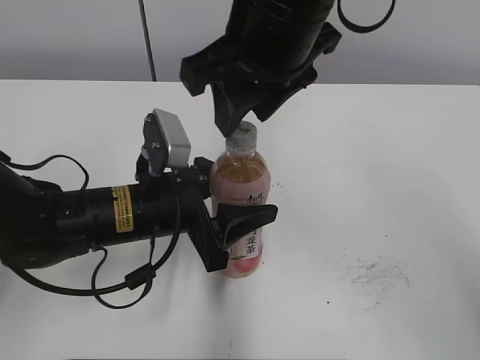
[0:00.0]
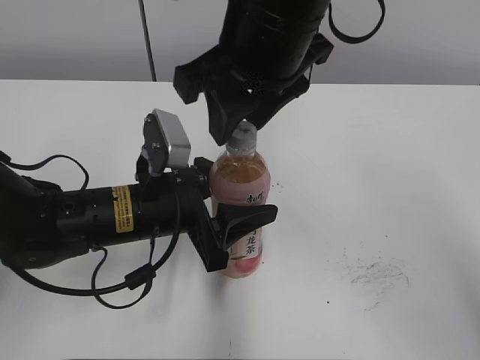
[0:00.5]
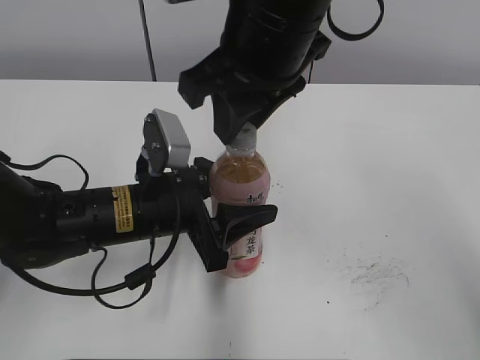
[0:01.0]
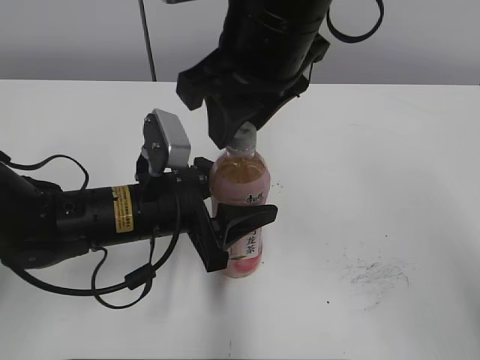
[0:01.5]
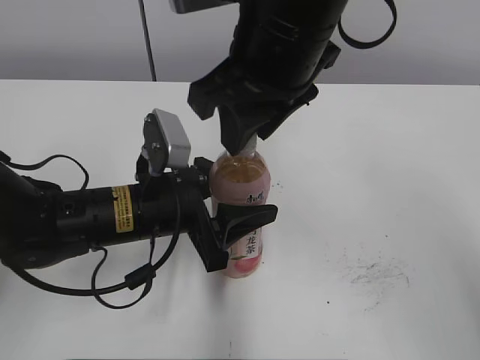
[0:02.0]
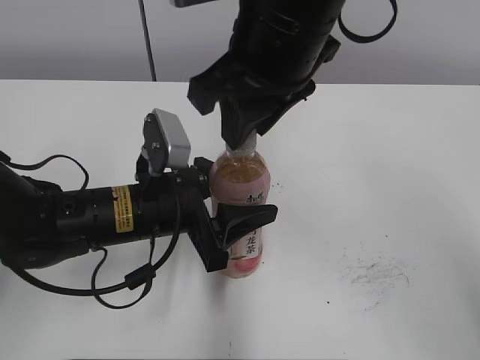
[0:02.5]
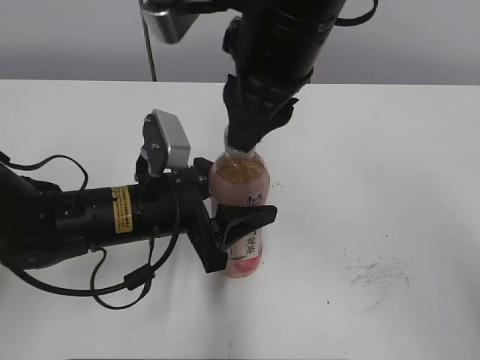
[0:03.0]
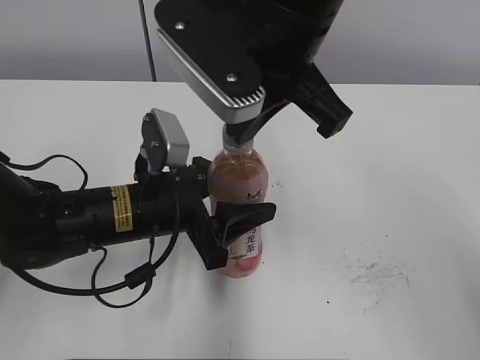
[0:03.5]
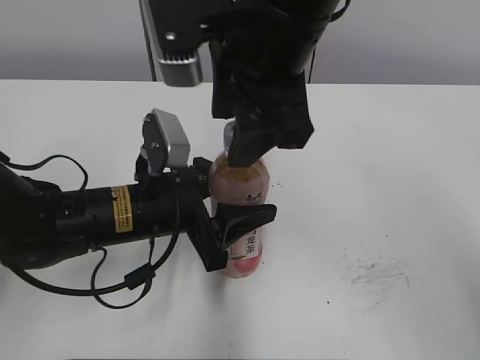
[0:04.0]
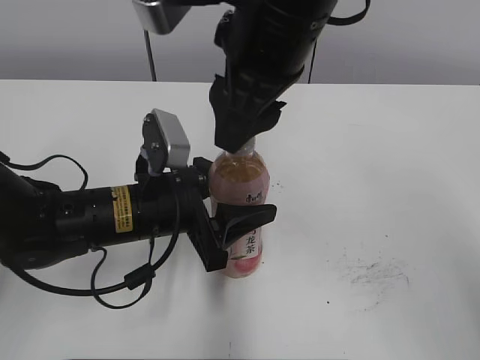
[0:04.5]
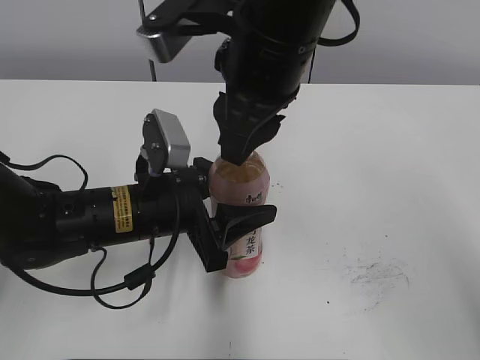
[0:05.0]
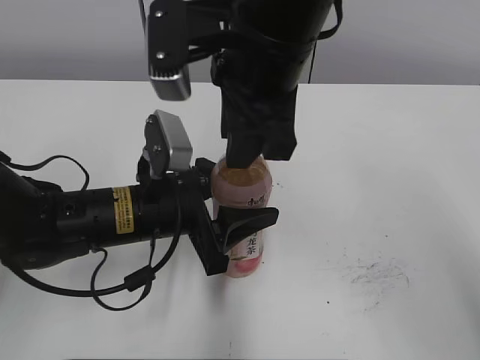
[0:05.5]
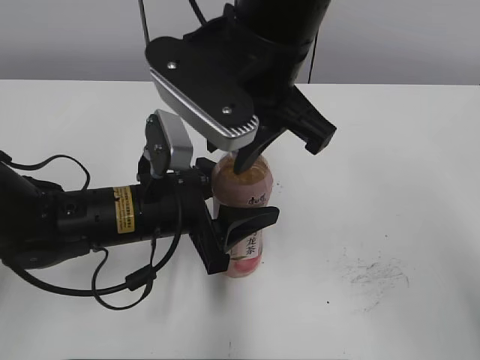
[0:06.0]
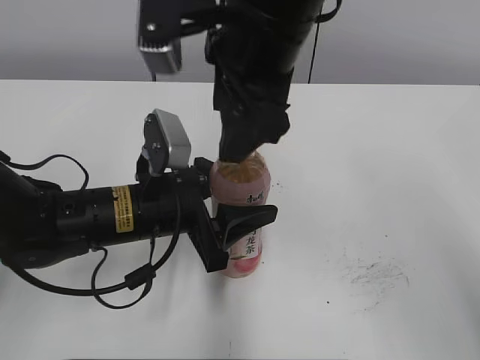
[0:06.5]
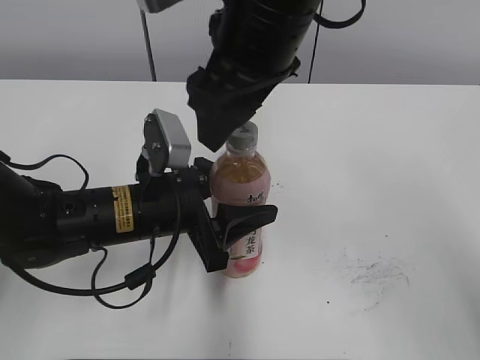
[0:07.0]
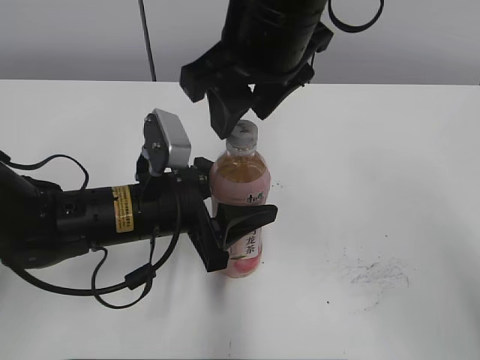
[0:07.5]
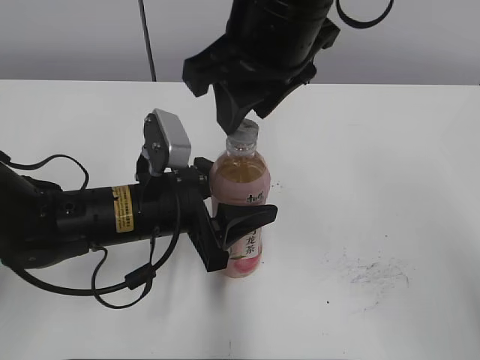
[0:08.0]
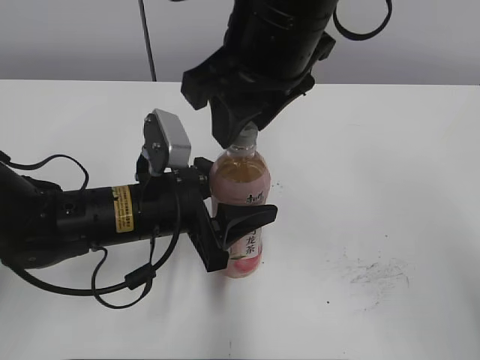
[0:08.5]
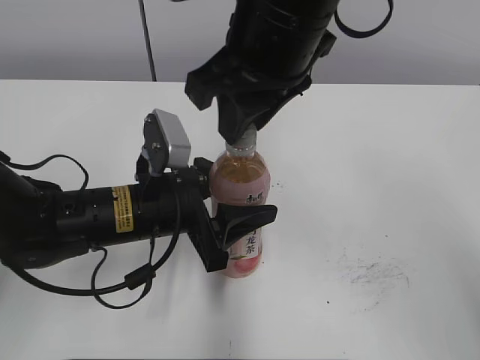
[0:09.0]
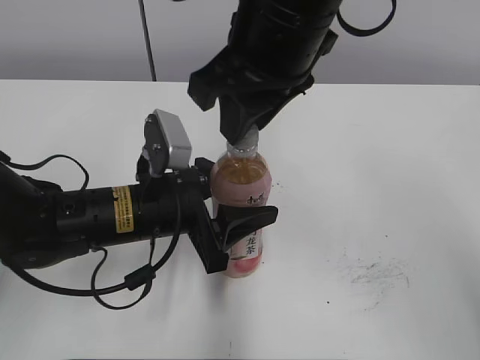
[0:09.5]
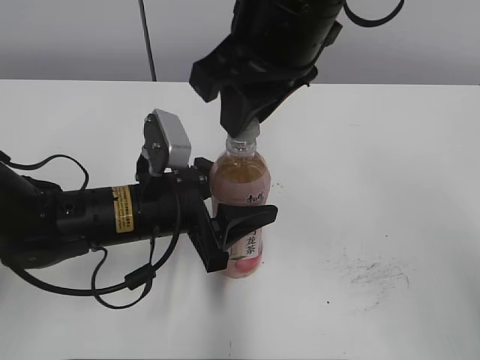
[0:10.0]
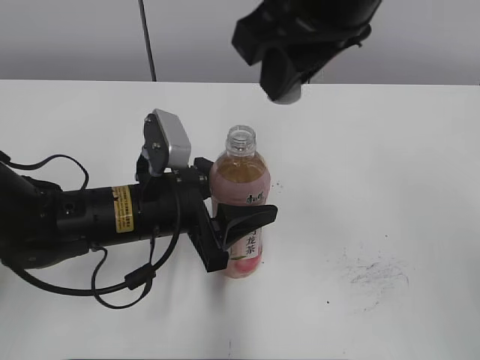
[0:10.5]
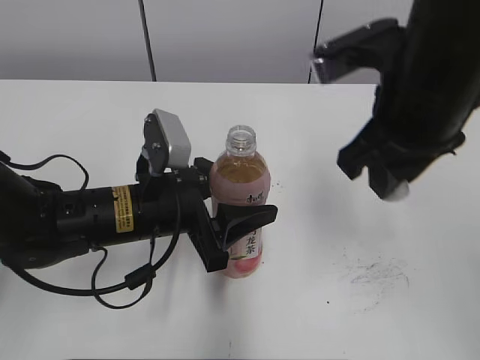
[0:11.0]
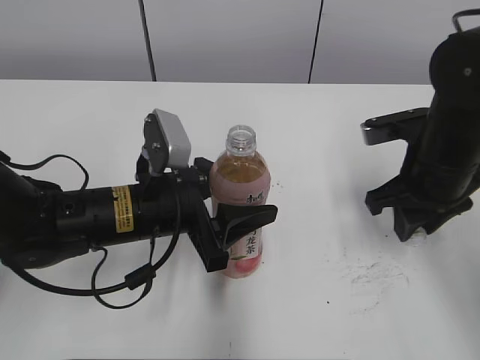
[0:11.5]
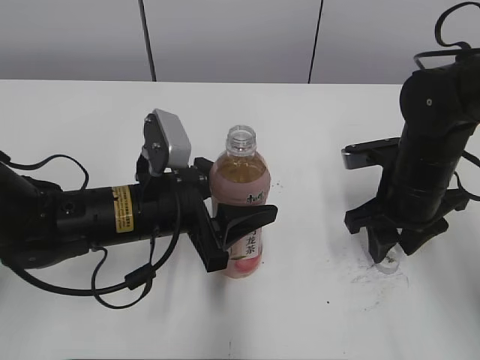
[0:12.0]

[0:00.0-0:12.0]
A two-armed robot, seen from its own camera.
Step, 0:10.5 to 0:11.5: Place the bottle cap on the right.
0:00.0 to 0:02.0: There are only small adjustments of the grippers.
0:02.0 to 0:04.0: The right gripper opens.
0:04.0 to 0:06.0: The right gripper closes up.
0:06.0 to 0:08.0: The right gripper opens and closes again.
0:08.0 to 0:10.0: The grippers stay close to where they were, moving slightly.
0:10.0 to 0:12.0: The right gripper is displaced downward and to the right by roughly 25 cm.

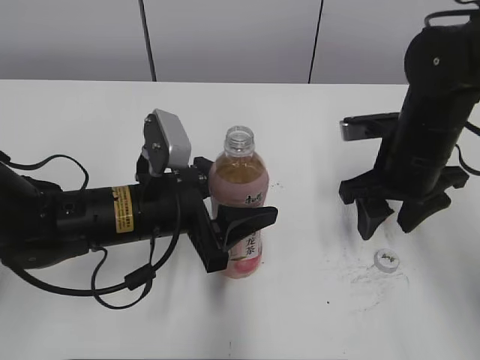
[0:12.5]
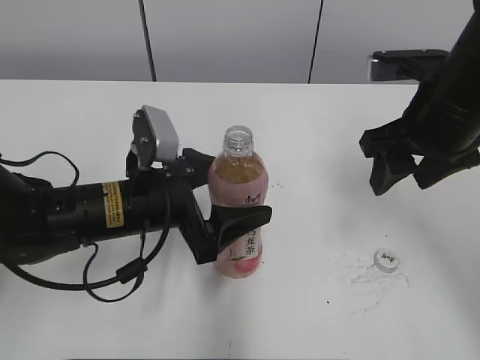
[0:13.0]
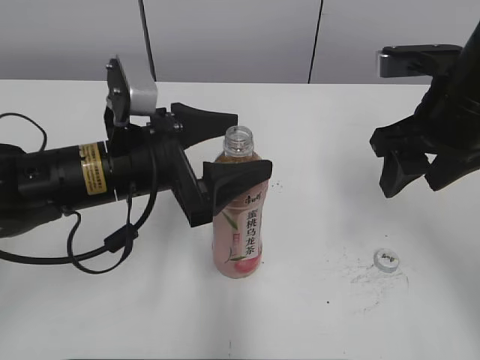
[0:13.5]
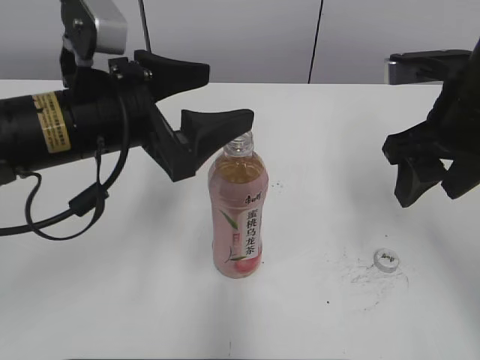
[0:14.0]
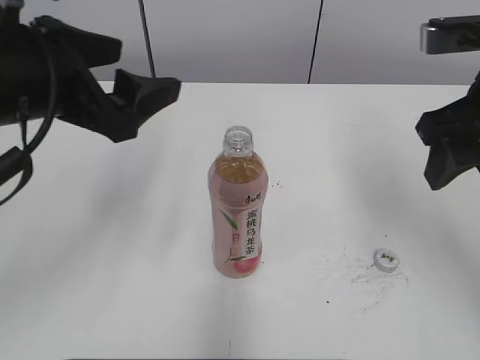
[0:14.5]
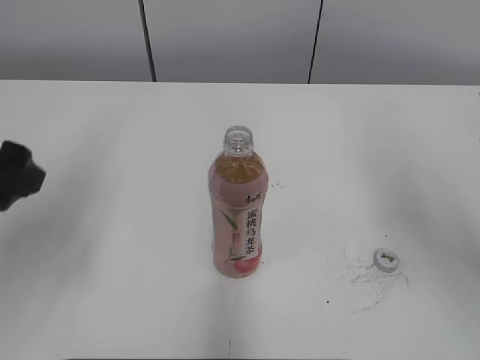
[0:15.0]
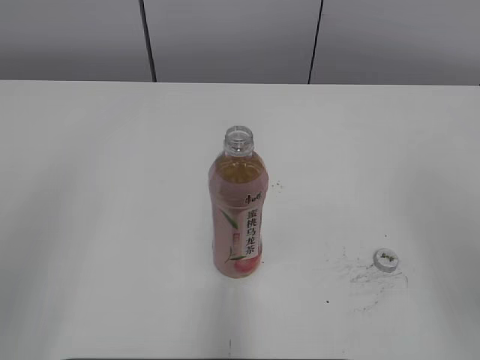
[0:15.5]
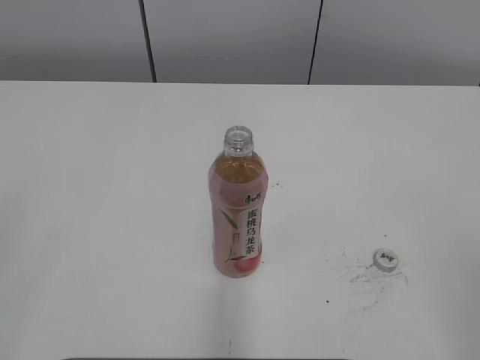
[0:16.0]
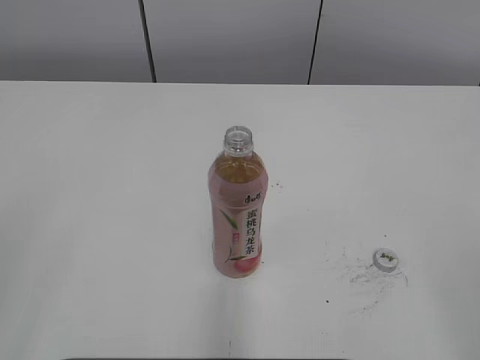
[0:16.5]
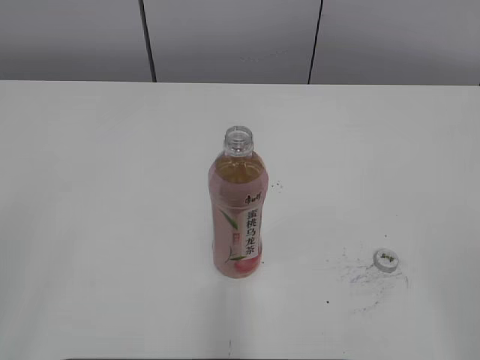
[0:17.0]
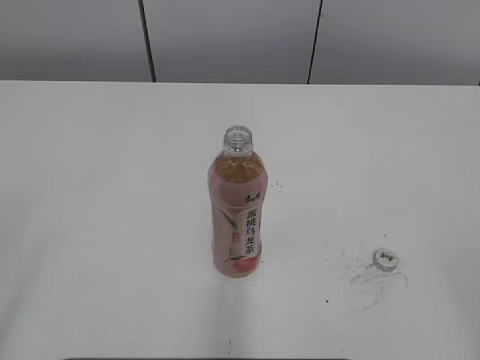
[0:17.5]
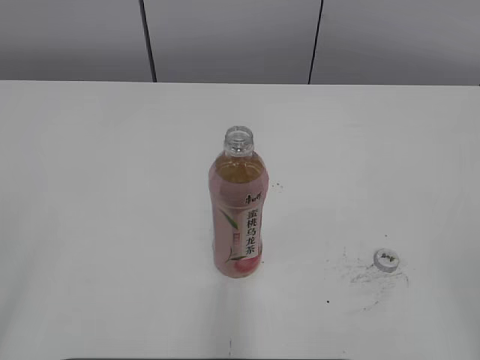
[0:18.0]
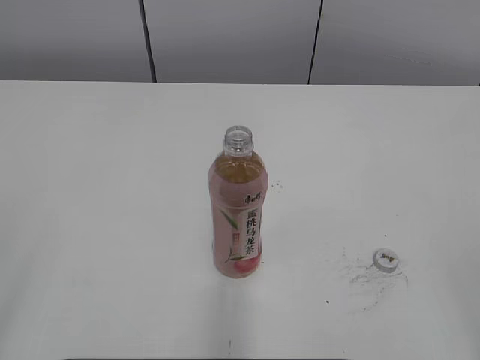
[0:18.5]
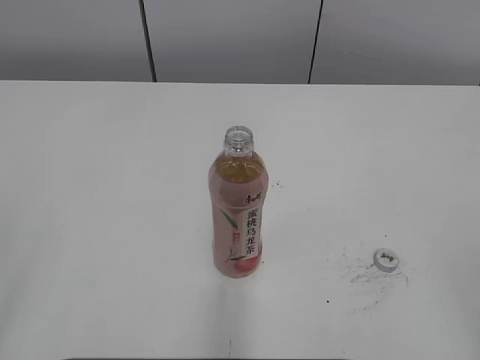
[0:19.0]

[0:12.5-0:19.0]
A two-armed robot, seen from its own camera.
Step, 0:12.5 to 0:13.0: Place the Peach Oolong Tea with the left hand.
0:12.5 to 0:14.5: The left gripper travels upward and to the left by roughly 15 cm, and opens; the right gripper goes roughly 15 cm upward and backward.
0:14.5 to 0:17.0: The right gripper travels backward by approximately 25 cm; the left gripper shifts about 25 cm backward and to the left, and closes its fingers.
